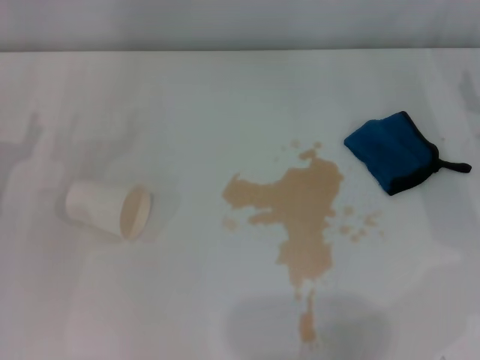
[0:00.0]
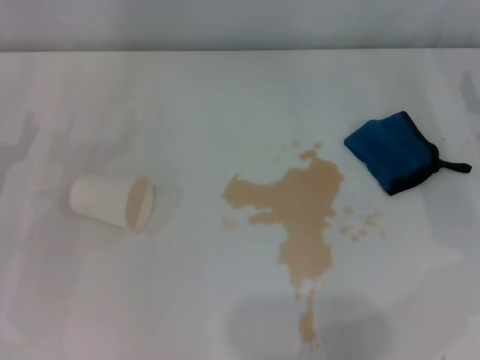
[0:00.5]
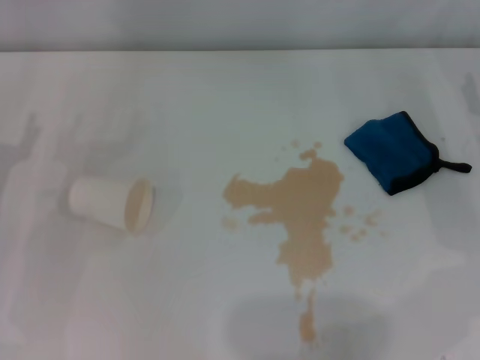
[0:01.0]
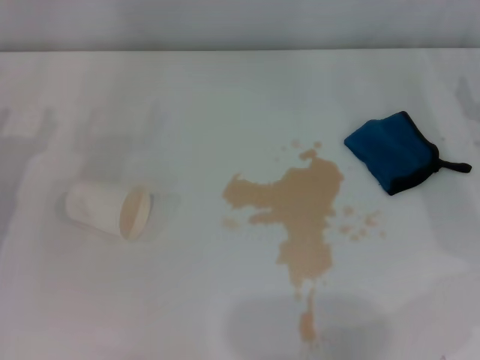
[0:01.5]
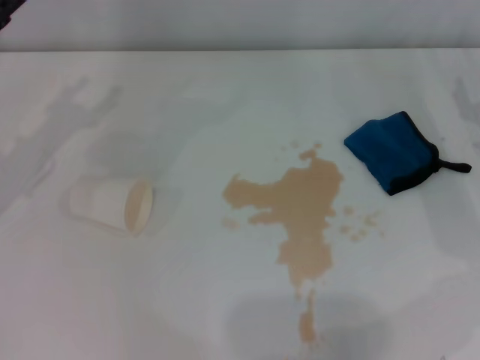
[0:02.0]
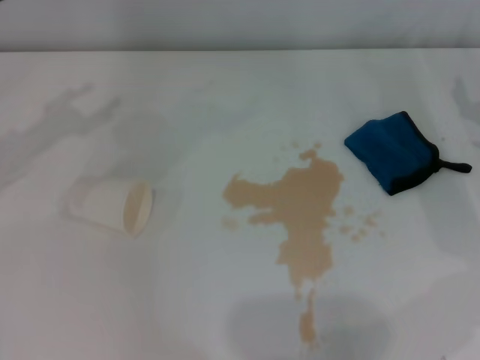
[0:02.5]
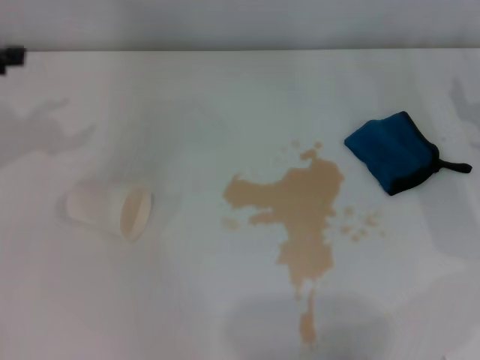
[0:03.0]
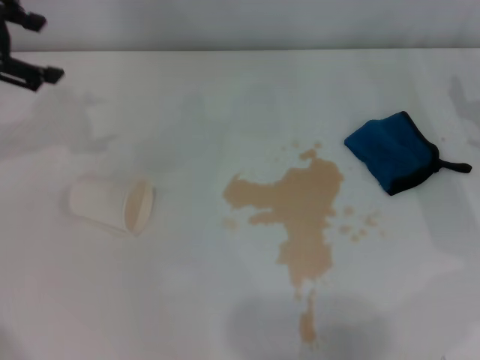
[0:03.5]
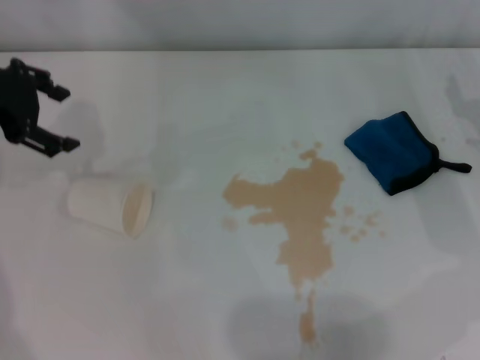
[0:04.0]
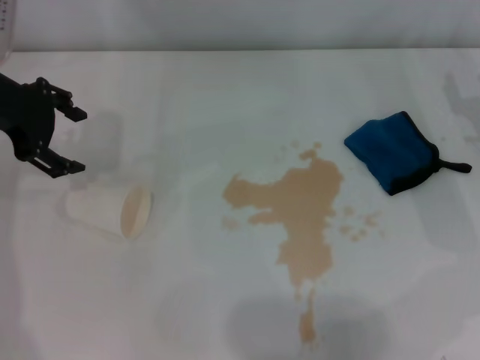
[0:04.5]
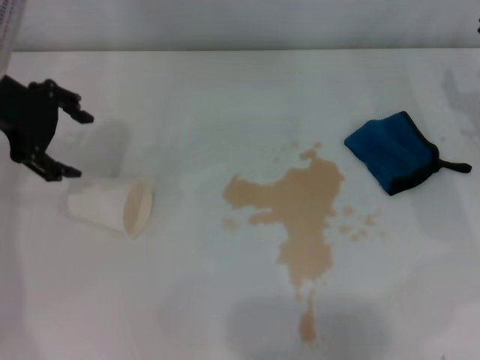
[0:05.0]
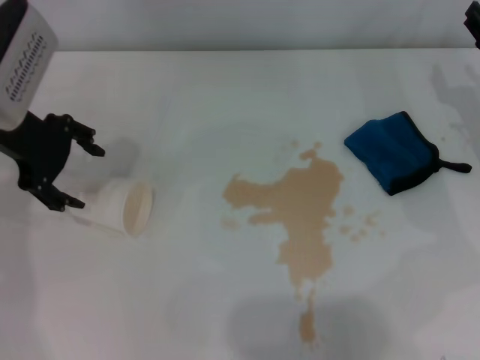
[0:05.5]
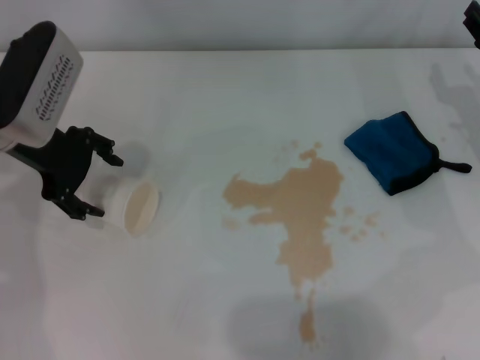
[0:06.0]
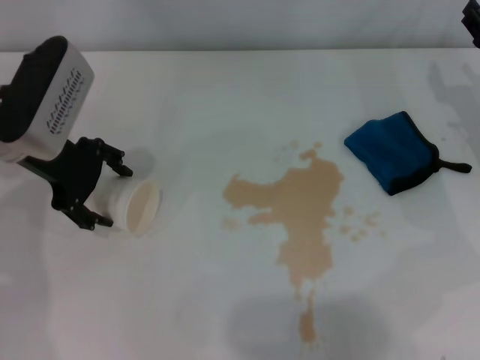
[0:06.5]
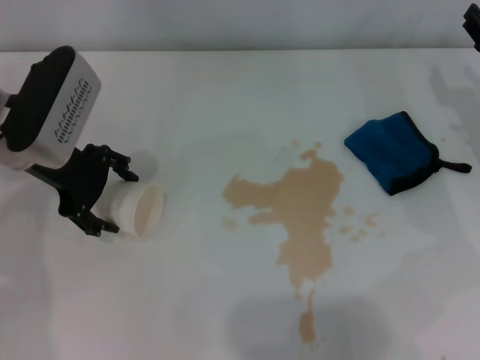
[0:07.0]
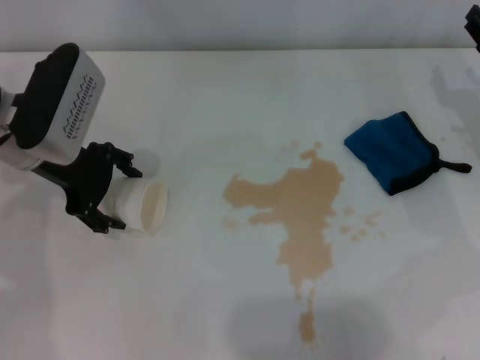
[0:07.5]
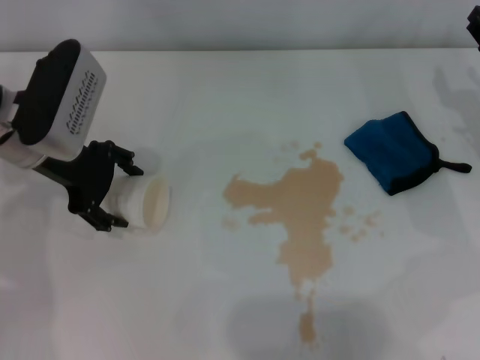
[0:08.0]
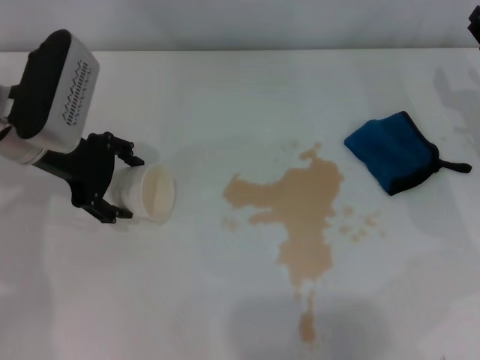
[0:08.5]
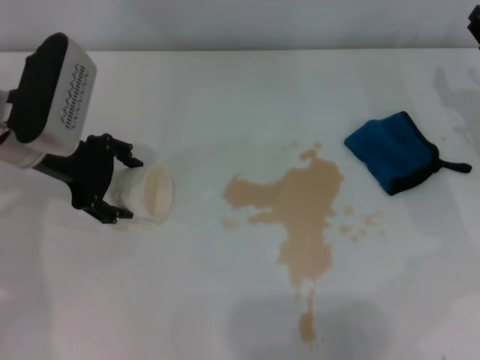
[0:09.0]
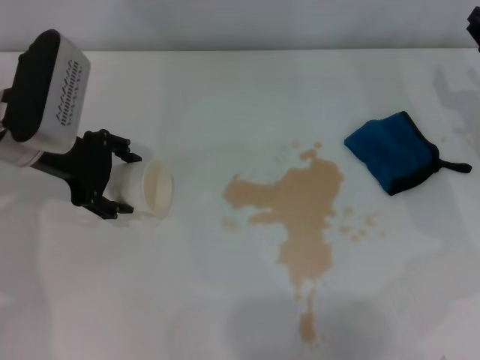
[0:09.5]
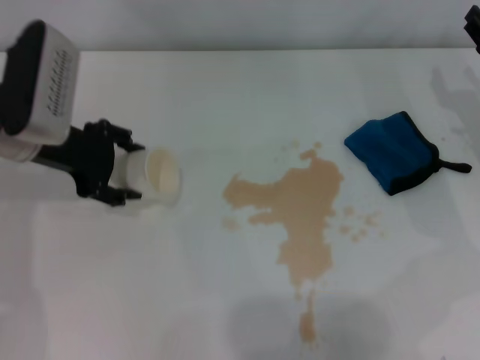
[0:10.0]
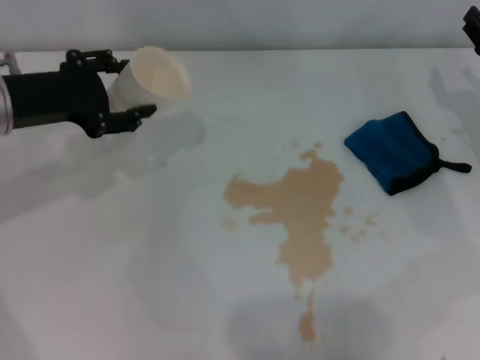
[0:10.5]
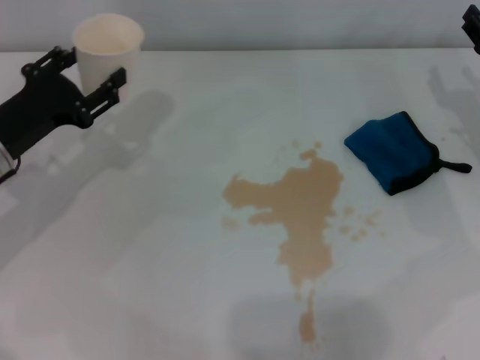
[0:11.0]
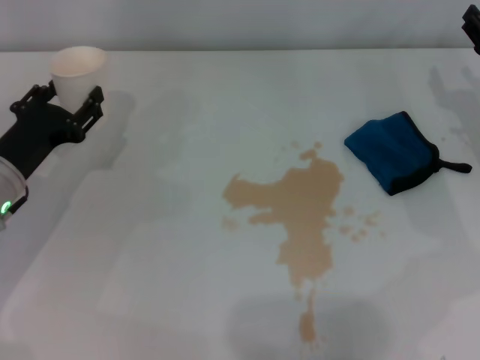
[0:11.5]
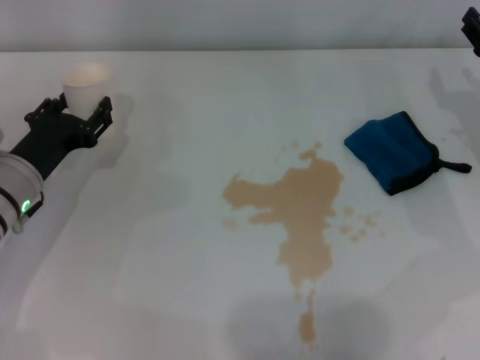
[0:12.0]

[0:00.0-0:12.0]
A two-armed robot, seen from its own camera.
Step, 0:00.0 to 0:09.5: Grasp the paper cup with the left gripper.
0:02.0 to 0:04.0: The left gripper shifts some 10 cm upward.
0:04.0 to 0:06.0: The left gripper moves to the right and downward, roughly 10 cm.
0:06.0 to 0:08.0: There are only small adjustments of the grippers.
0:08.0 to 0:10.0: The left gripper closes.
0:10.0 to 0:12.0: The left gripper goes about 10 cm downward, and closes its fingers.

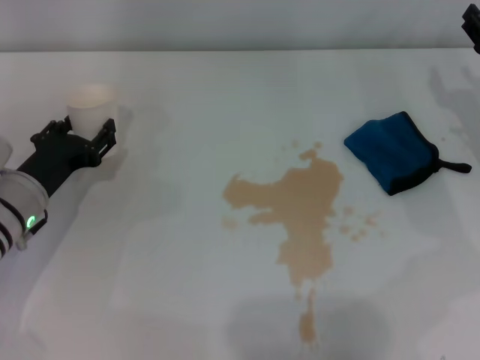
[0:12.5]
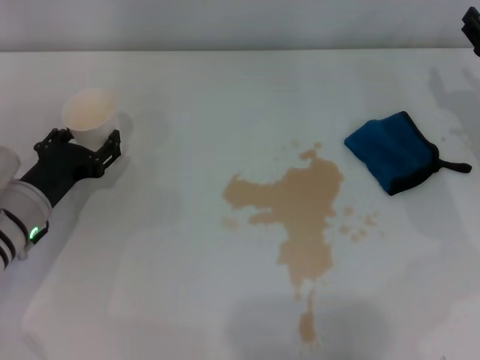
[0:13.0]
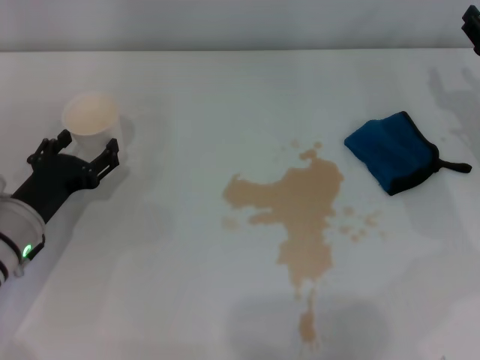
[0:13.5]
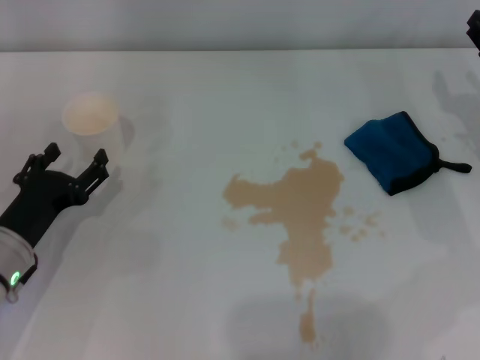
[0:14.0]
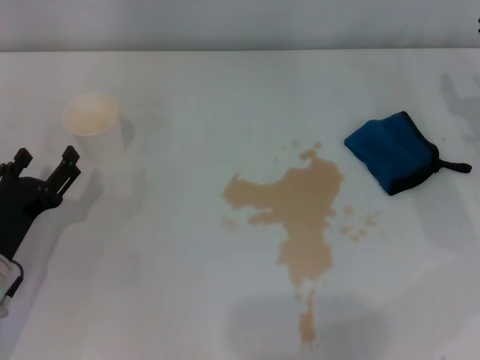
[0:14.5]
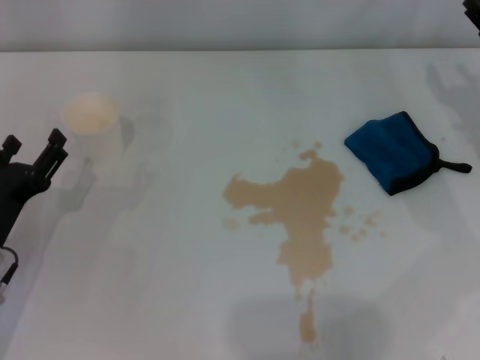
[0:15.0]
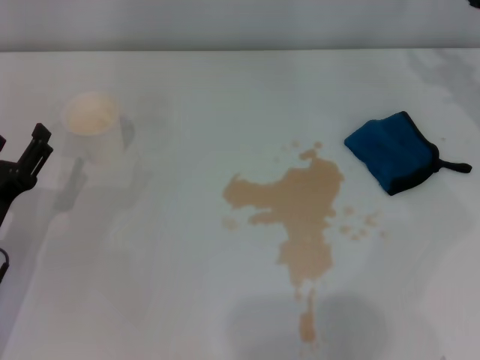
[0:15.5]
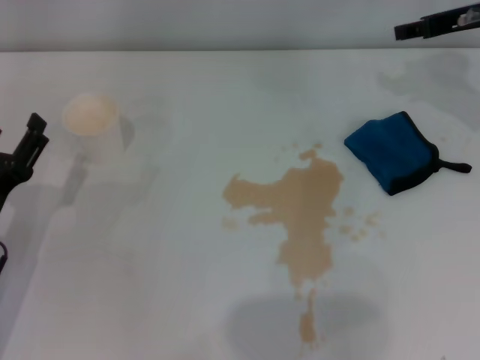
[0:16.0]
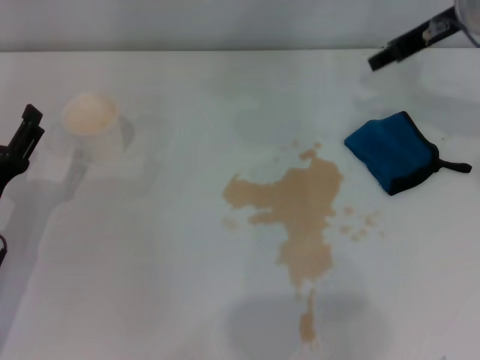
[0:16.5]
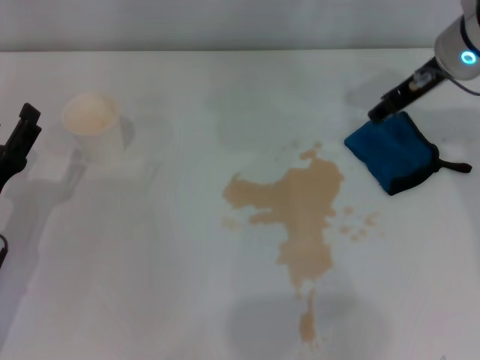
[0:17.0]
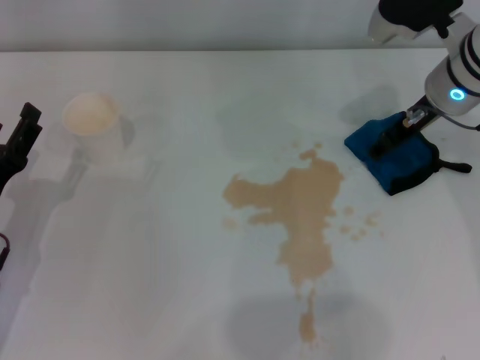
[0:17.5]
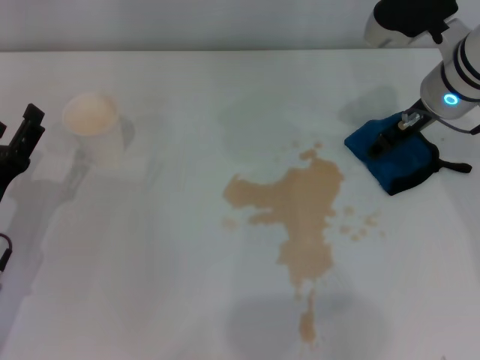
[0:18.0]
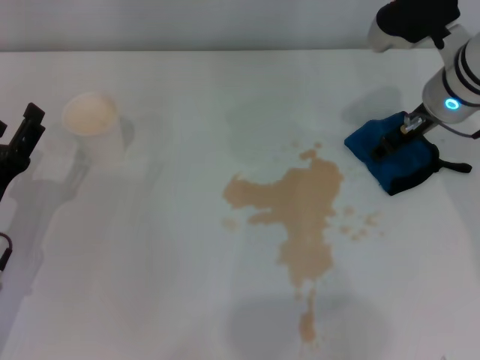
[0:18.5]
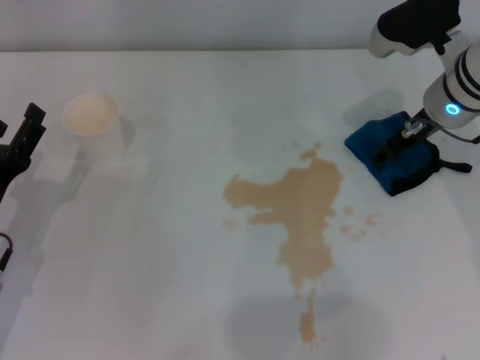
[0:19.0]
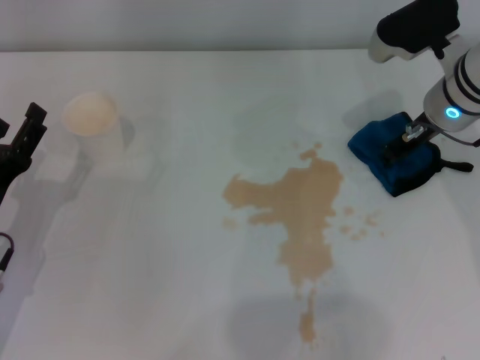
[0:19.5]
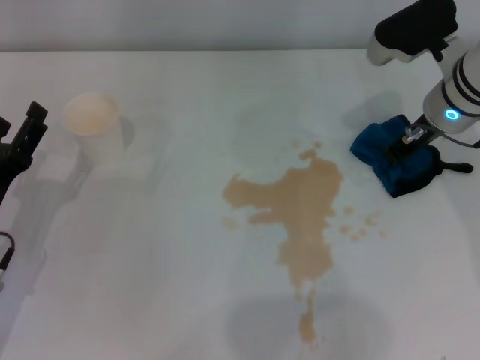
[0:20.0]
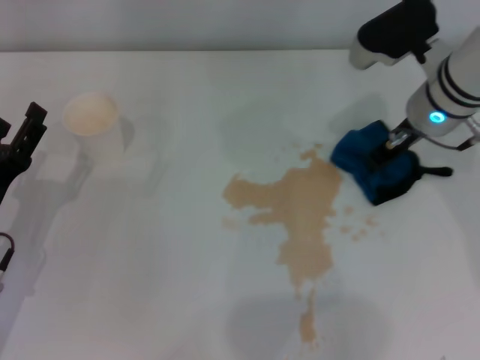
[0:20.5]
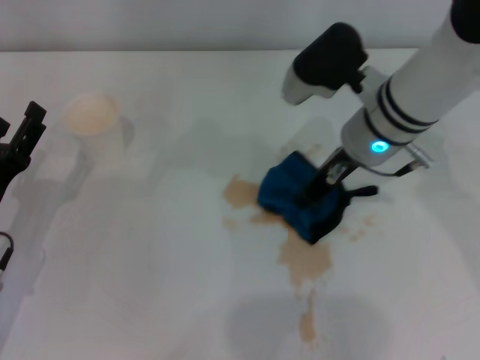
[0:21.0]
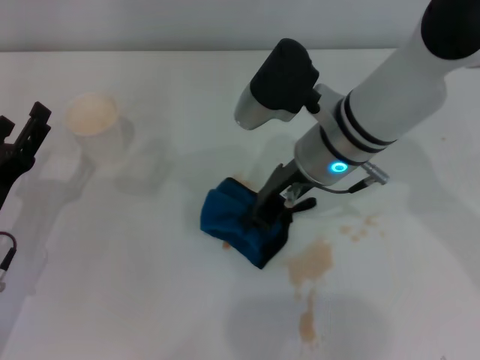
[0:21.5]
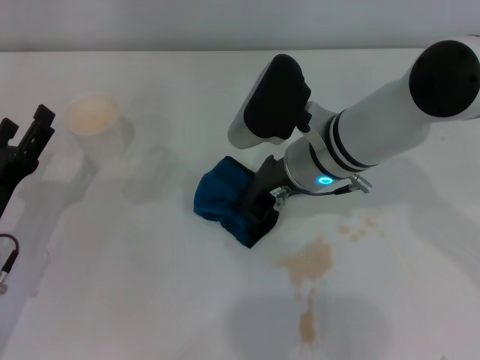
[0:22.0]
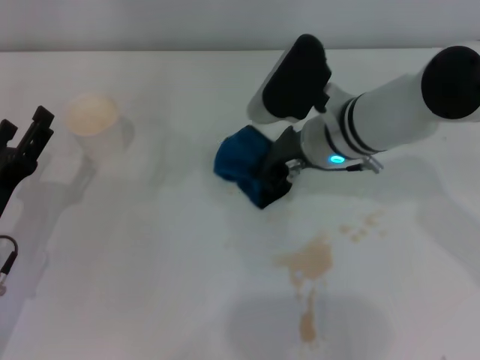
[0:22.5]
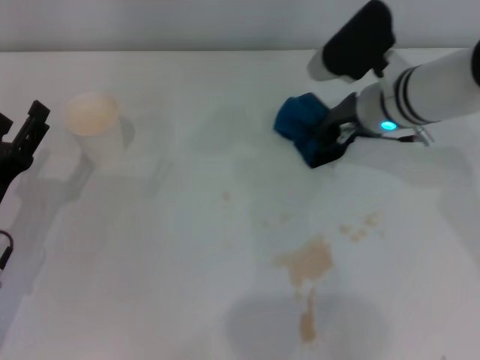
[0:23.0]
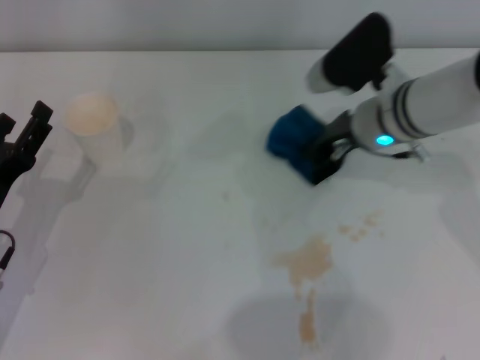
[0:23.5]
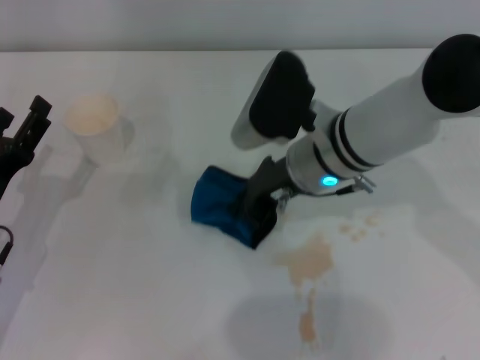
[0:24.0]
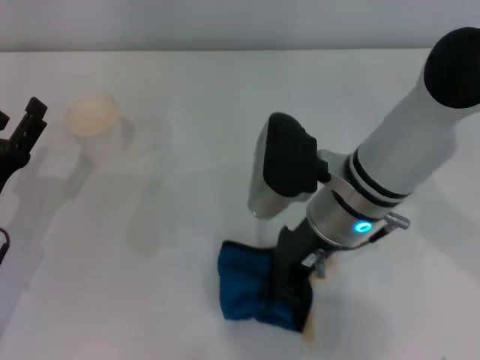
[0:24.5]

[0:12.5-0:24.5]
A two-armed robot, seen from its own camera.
Step, 0:13.5 to 0:20.0: Grasp the rag with the right gripper.
0:12.5 to 0:14.5: The left gripper moves backward, some 10 cm, and opens.
0:14.5 to 0:16.5: The right gripper moves upward, to the left and forward, approximately 20 cm.
0:16.5 to 0:18.5: The right gripper moves downward, some 5 cm.
0:18.5 to 0:20.5: The right gripper closes up.
0:20.5 to 0:22.5: The right gripper shifts roughly 10 cm to the left.
0:22.5 to 0:24.5: The right gripper travels backward by approximately 5 cm.

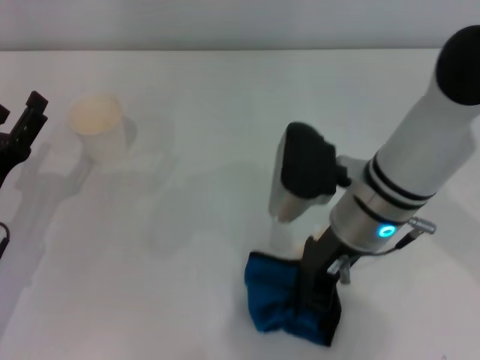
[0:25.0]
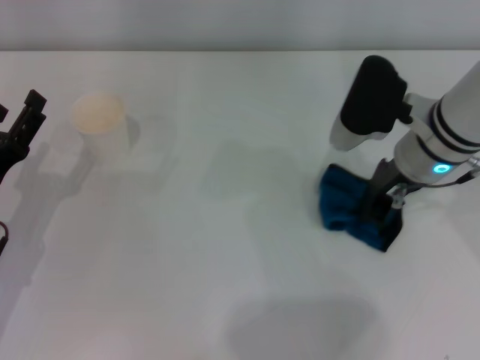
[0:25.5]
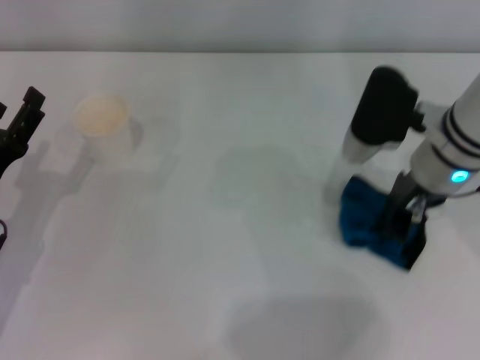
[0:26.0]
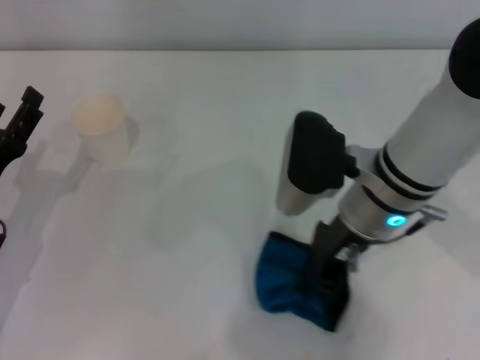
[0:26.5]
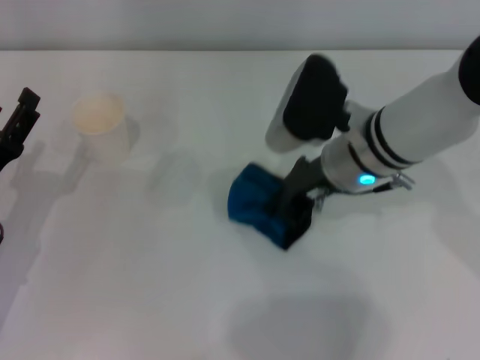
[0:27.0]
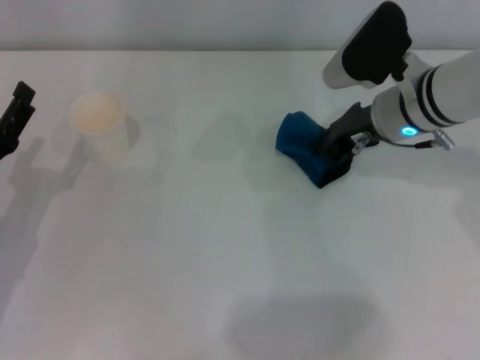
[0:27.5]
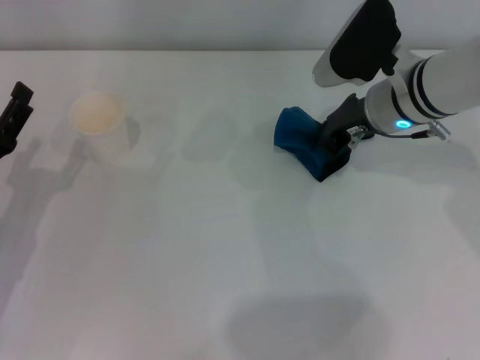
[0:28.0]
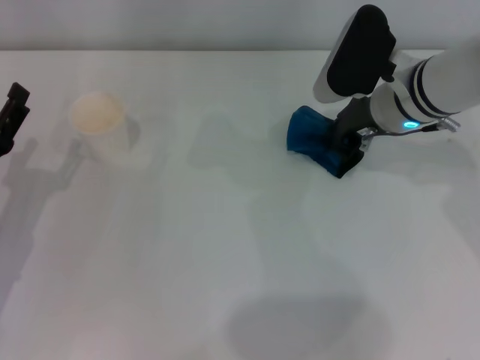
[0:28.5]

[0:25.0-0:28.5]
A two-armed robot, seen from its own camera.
Step, 0:25.0 to 0:28.0: Wipe the stains off the table with the right gripper.
0:27.0 to 0:28.5: The right gripper shifts about 5 cm forward and to the right.
